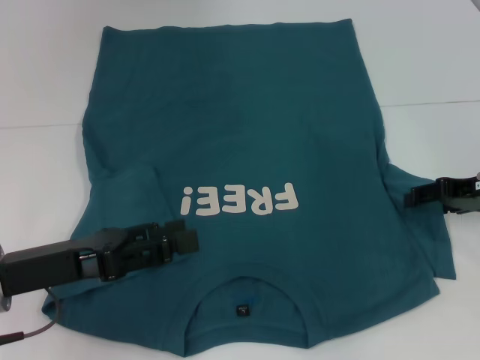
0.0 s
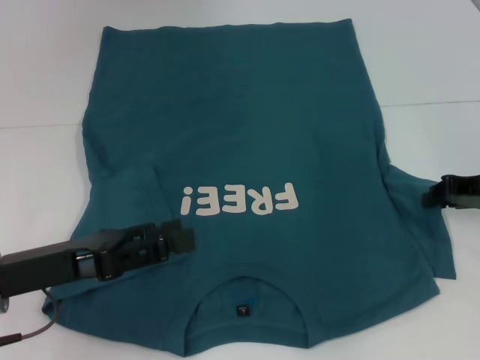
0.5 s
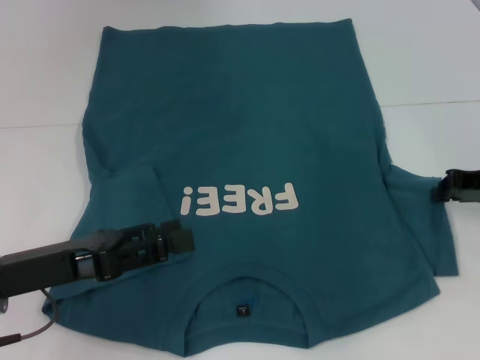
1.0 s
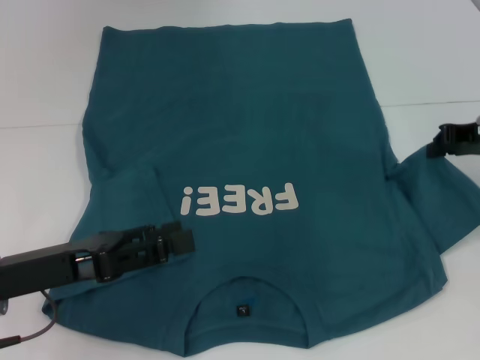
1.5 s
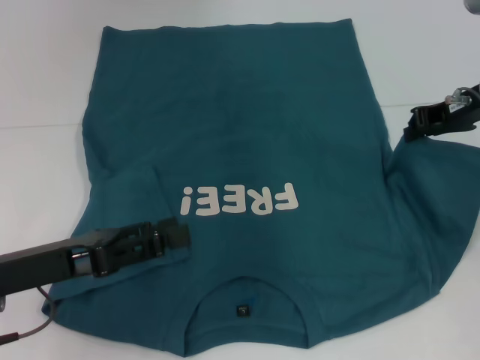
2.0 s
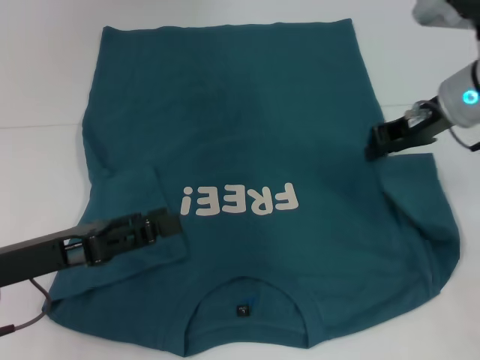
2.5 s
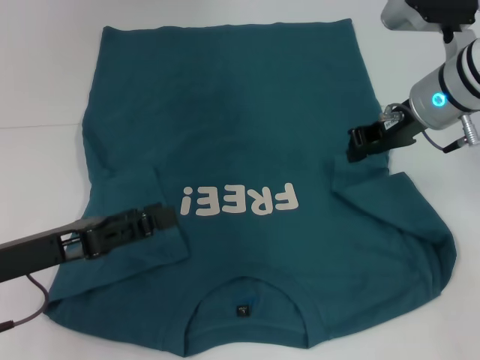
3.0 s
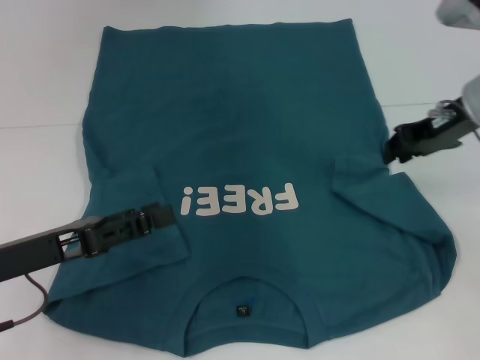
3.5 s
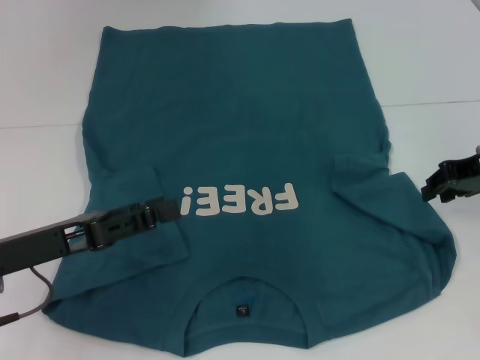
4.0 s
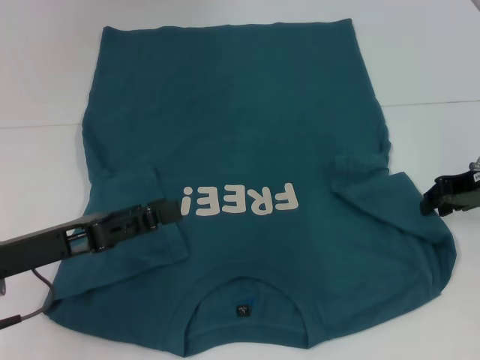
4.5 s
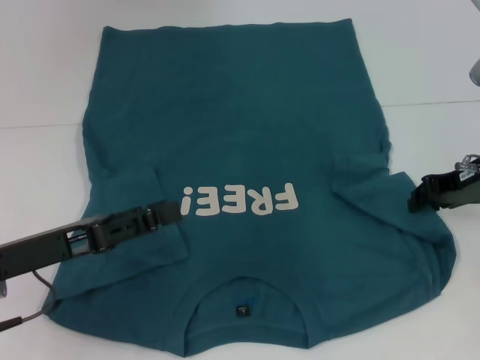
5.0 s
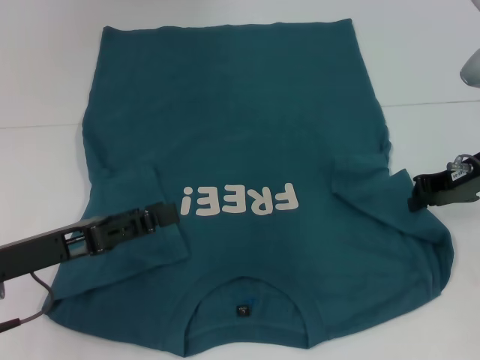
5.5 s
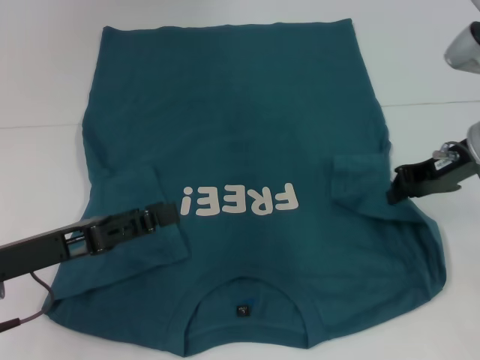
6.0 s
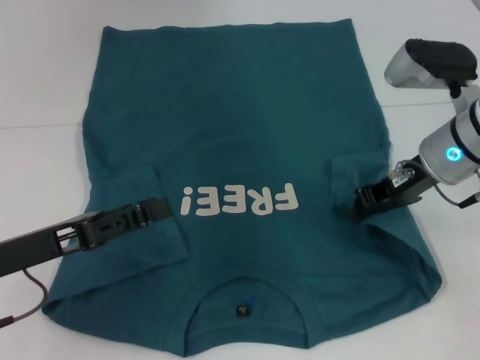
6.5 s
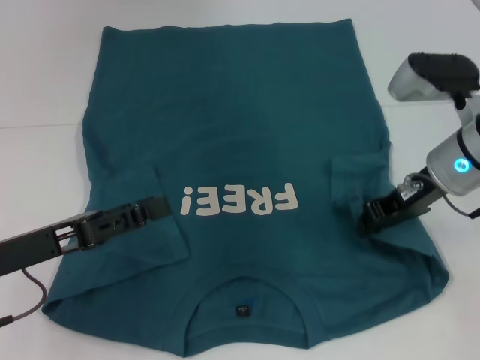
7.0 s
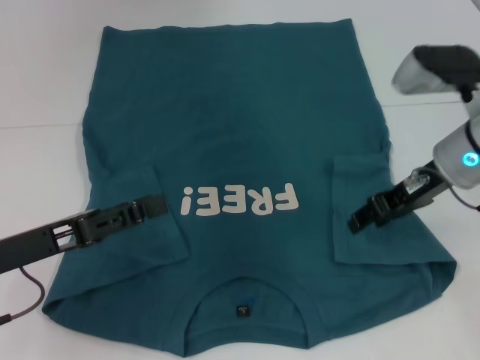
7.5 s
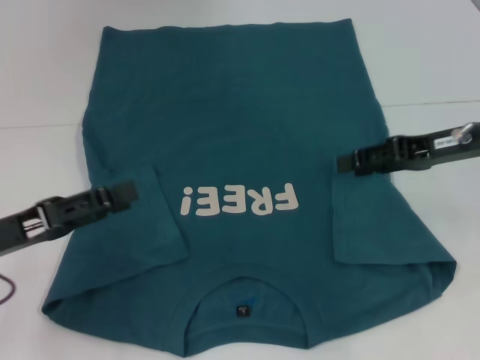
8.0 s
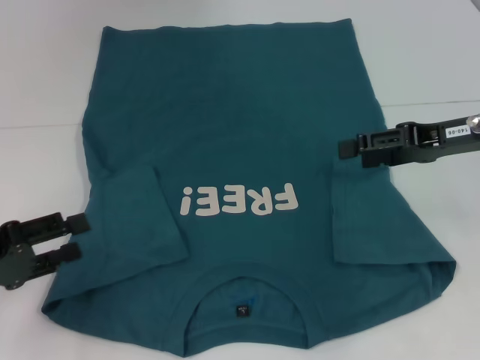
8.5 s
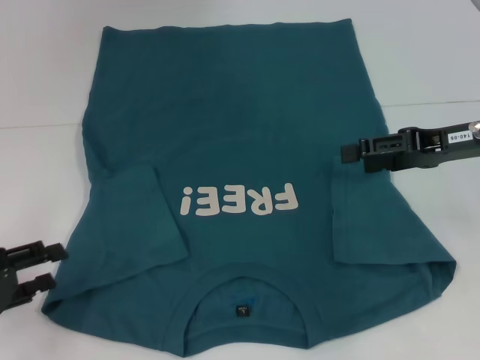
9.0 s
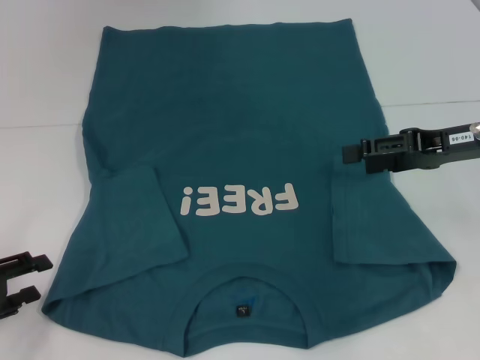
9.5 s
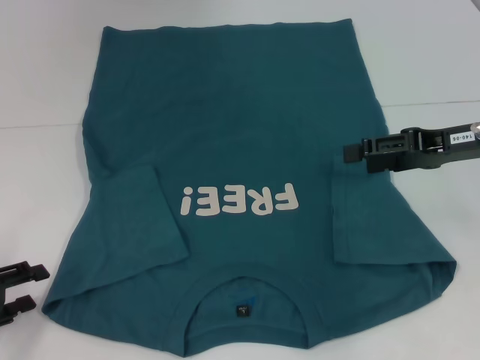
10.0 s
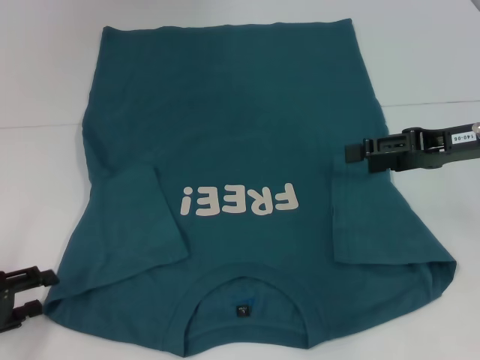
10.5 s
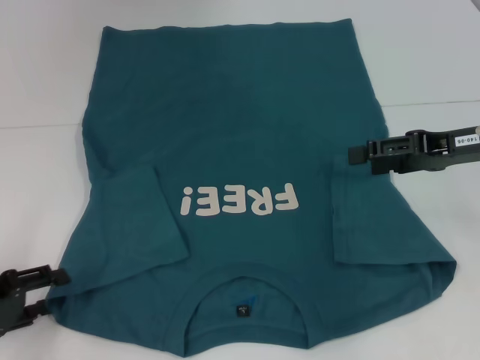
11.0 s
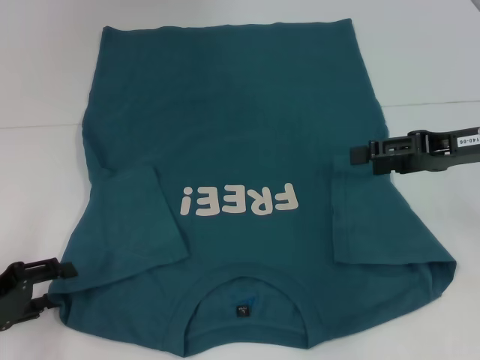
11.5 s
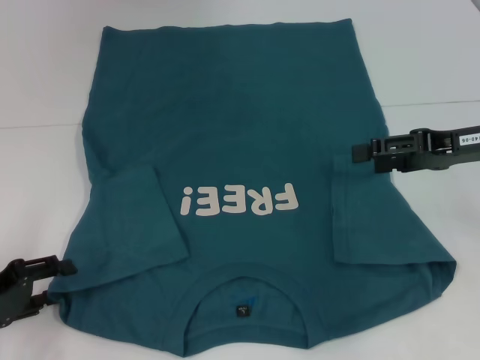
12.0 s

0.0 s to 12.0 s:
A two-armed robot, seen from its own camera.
Step, 0.0 to 7.5 s: Fold the bottom right sleeve to the right.
0.0 to 2.0 s: The right gripper travels upward and forward by approximately 10 cm, and closes up.
2.0 to 4.0 s: The right gripper goes to the left and returns, roughly 5 cm each way.
4.0 to 6.0 s: The grippers make only small movements.
6.0 to 8.0 s: The right gripper opens.
8.0 to 10.0 s: The right gripper opens its fingers. Meanwhile the left gripper is displaced to the left and downward by some 10 cm.
10.0 to 12.0 s: The grippers move only a little.

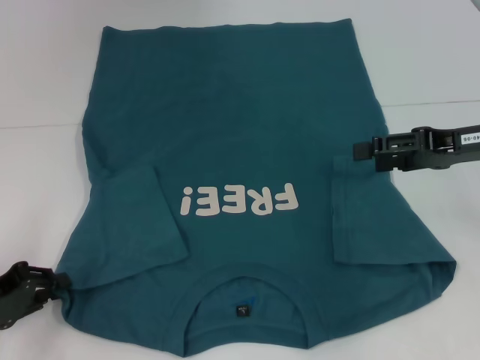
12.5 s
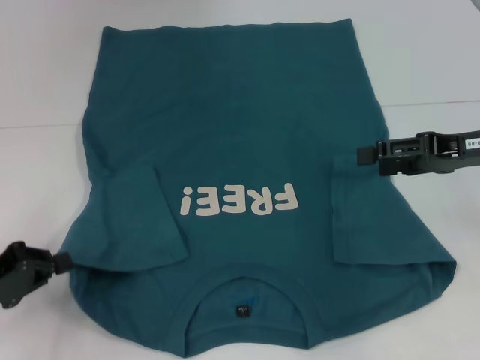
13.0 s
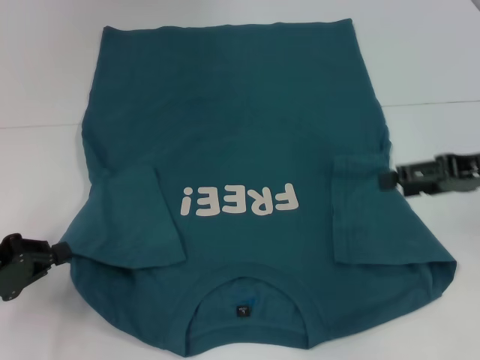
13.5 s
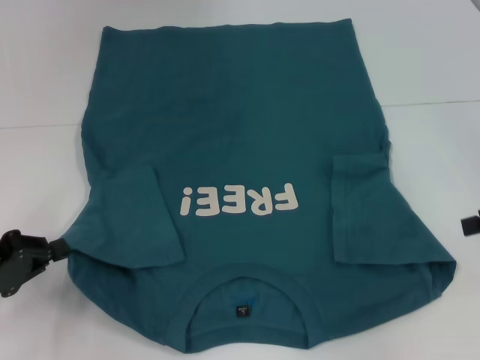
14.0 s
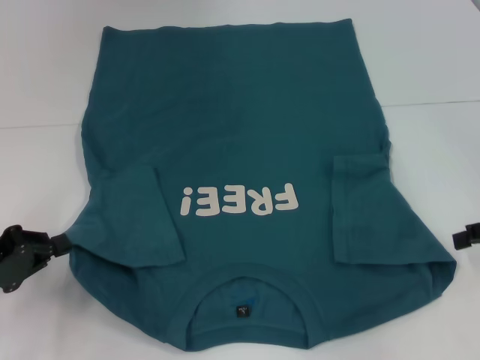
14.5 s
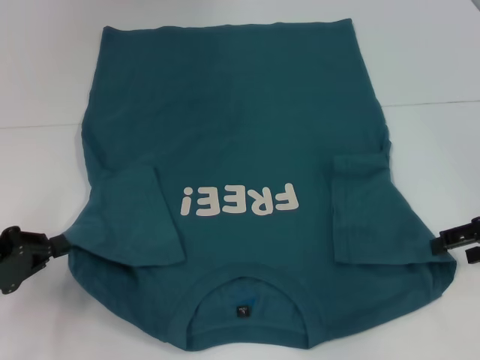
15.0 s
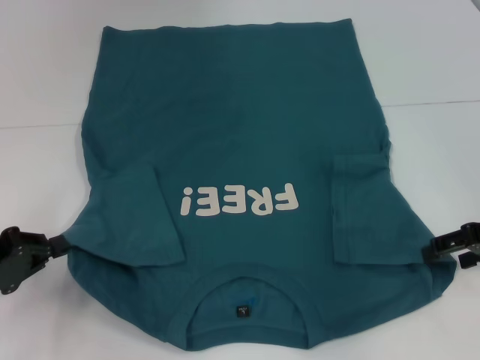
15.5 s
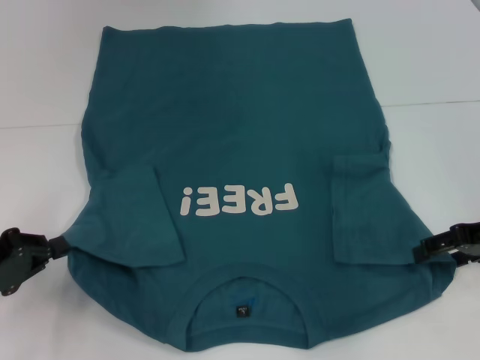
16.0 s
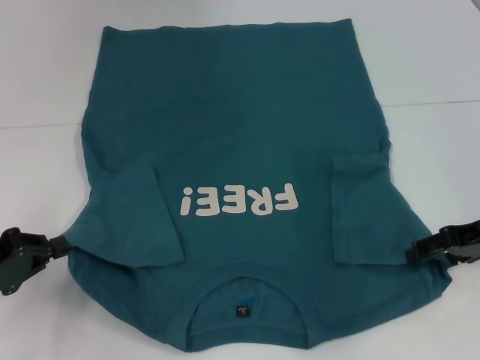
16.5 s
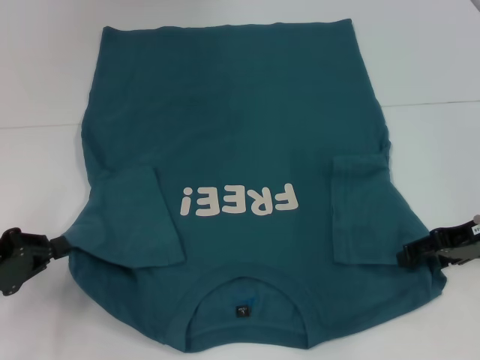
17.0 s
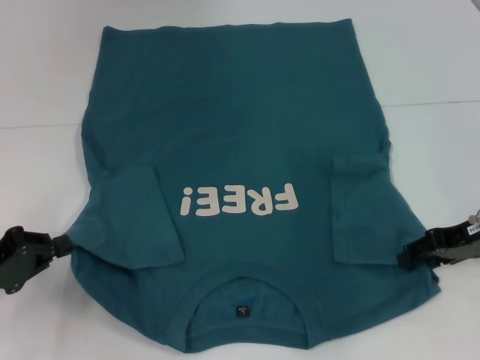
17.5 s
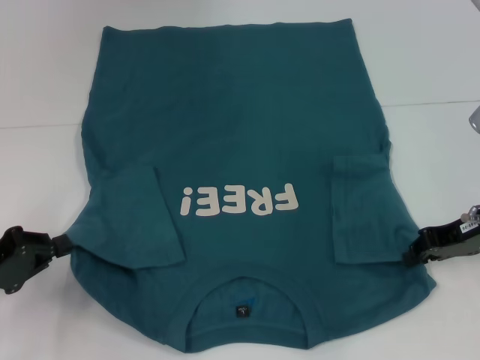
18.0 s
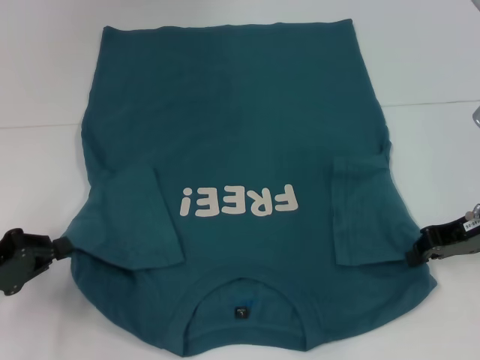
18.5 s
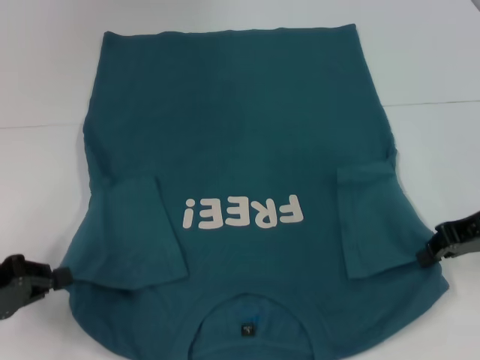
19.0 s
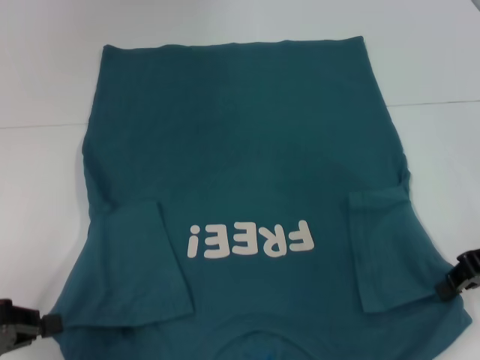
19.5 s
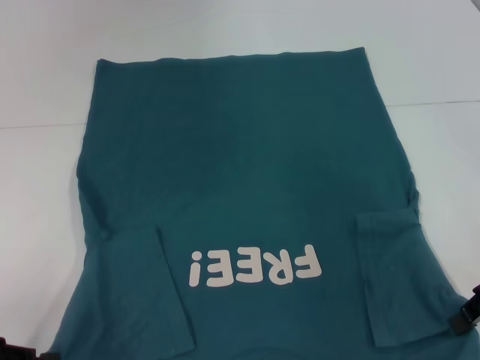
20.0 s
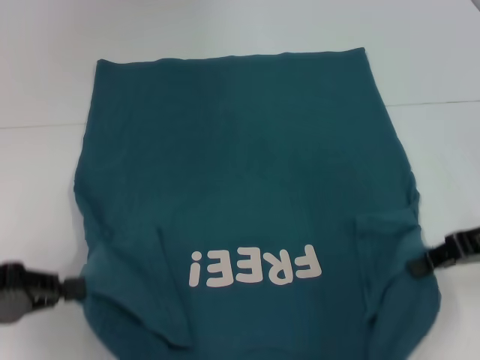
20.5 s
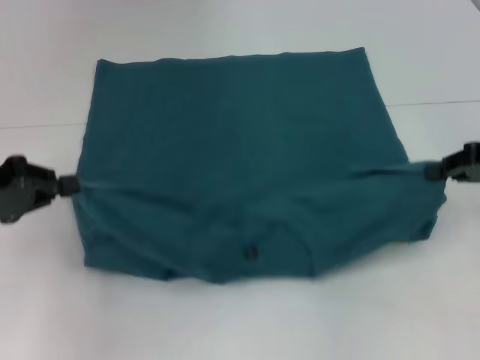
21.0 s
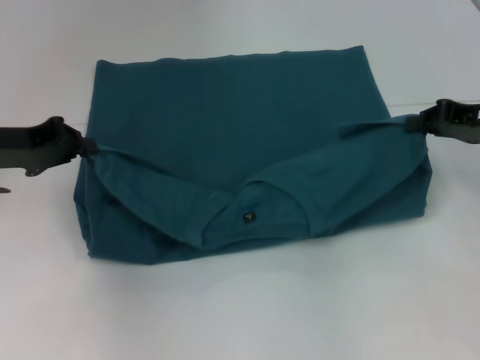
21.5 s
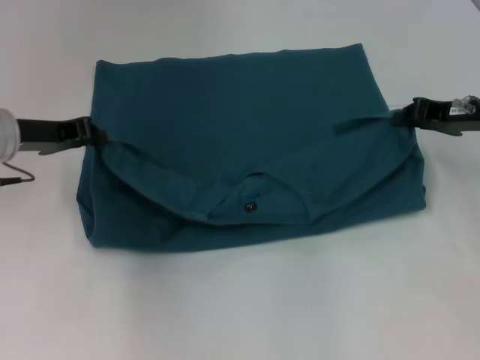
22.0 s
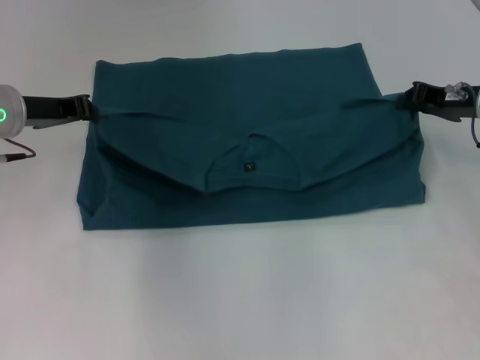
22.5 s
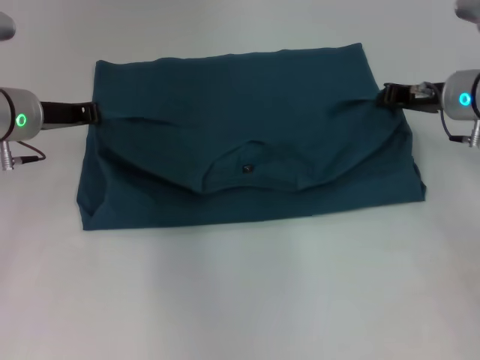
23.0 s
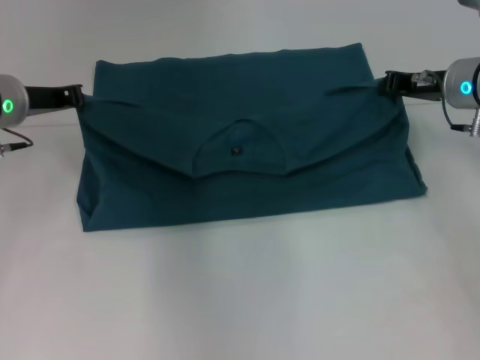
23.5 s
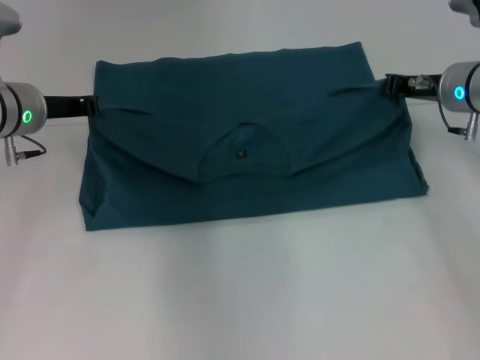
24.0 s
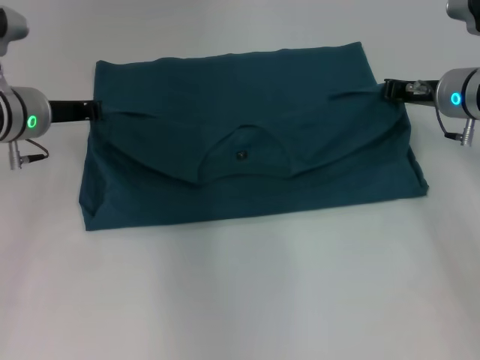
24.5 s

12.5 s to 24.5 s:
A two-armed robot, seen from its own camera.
Step, 13.0 to 18.5 s: Grab the bottom right corner with your right hand.
12.5 to 14.5 s: The right gripper shifts roughly 10 cm to the right. Meanwhile the left gripper closes.
14.5 to 16.5 s: The right gripper heads to the left, covering some 5 cm.
16.5 to 18.5 s: The right gripper closes up.
20.5 to 22.5 s: The right gripper heads forward, covering roughly 10 cm; the left gripper travels forward and to the right by roughly 20 cm.
22.5 to 24.5 s: There are only small adjustments of the grippers.

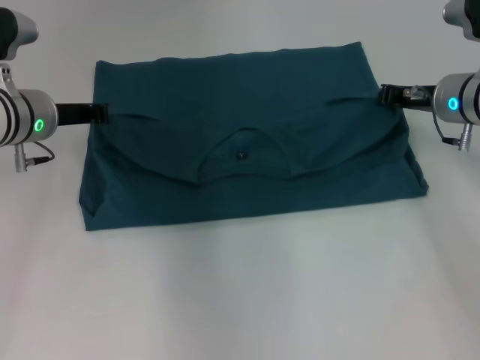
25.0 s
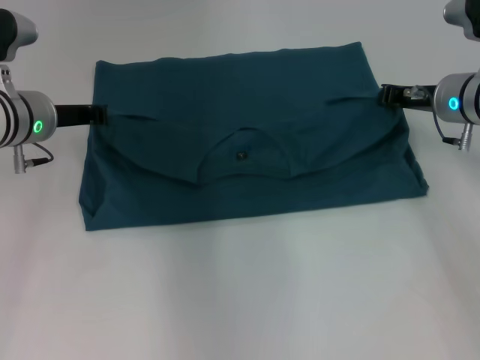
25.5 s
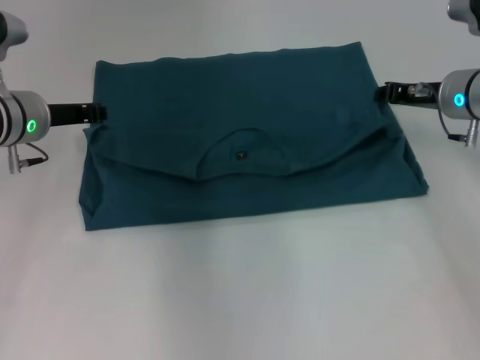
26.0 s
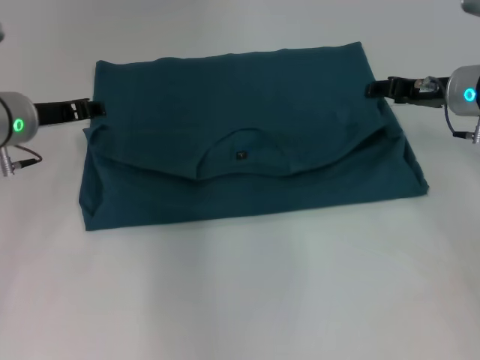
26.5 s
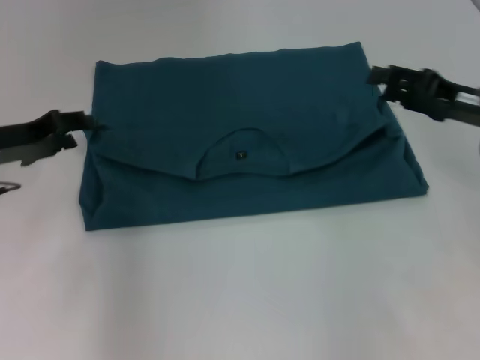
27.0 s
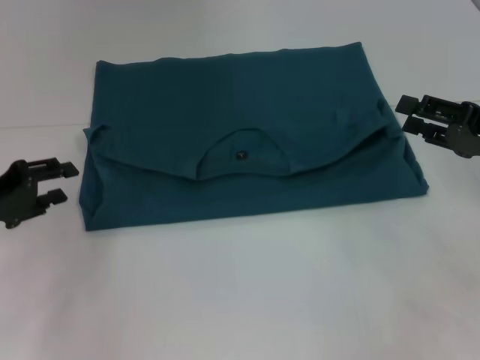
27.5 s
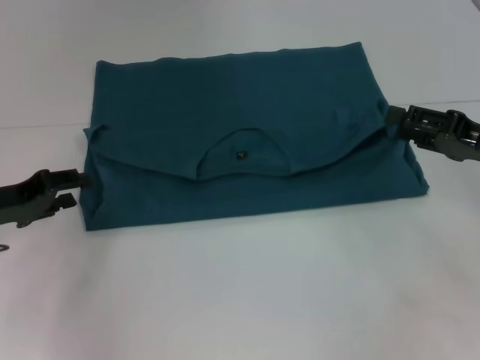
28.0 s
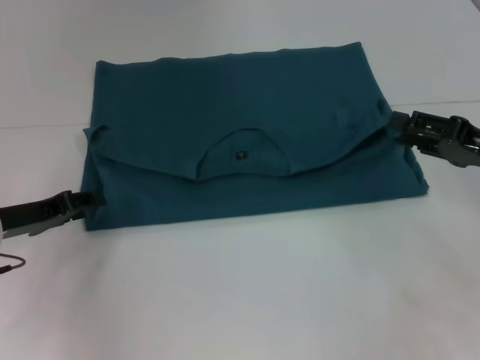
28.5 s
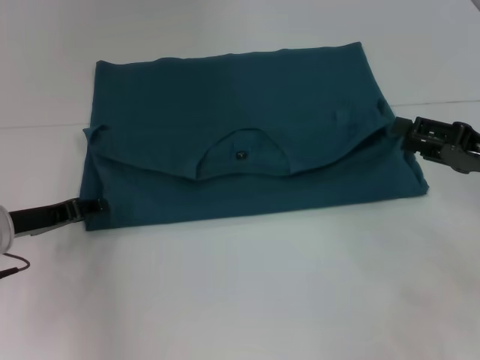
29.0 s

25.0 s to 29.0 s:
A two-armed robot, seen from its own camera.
25.0 to 27.0 s: The left gripper travels to the left and backward by approximately 10 cm, and opens its fingers. The right gripper moves backward, some 10 cm, and opens its fingers.
27.0 to 29.0 s: The right gripper changes place by about 5 cm. Meanwhile the left gripper goes roughly 5 cm downward.
